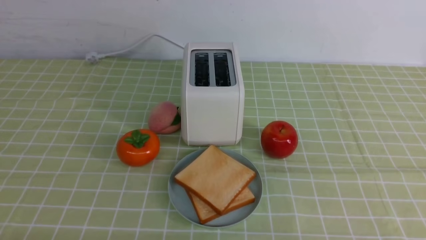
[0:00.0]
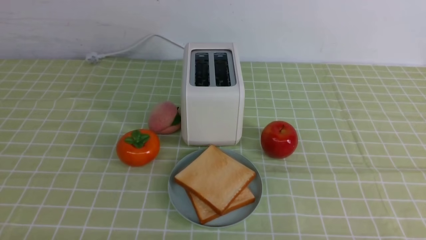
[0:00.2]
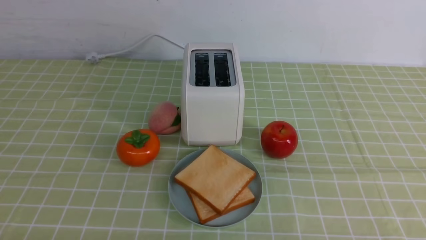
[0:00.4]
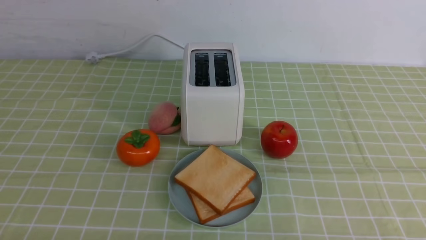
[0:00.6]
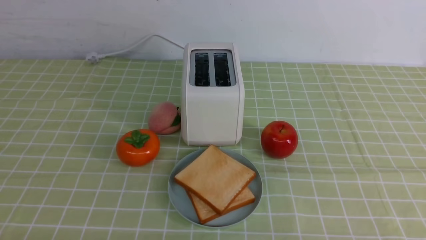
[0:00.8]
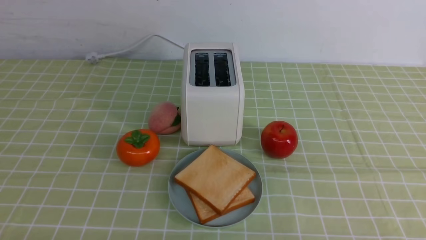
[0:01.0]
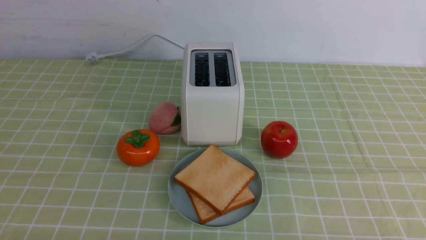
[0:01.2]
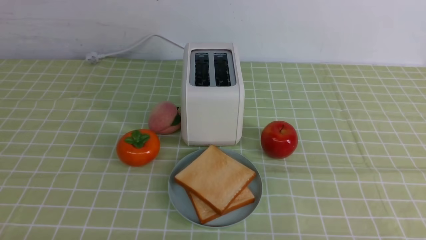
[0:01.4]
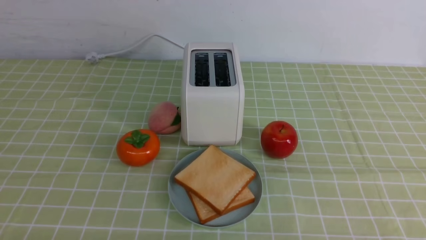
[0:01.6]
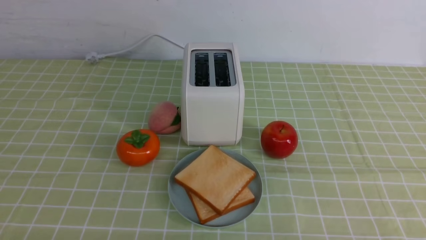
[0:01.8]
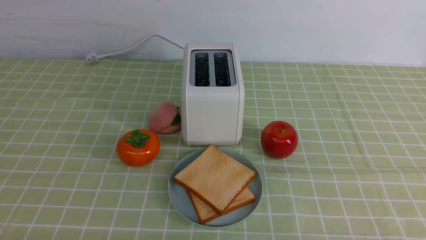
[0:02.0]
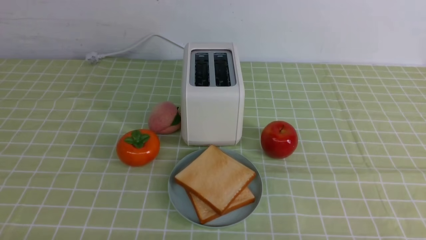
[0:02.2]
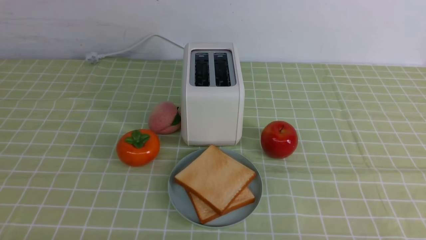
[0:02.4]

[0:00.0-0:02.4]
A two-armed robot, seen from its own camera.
Task of the whole recording: take toasted bread from bread machine on green coffee tablecloth place on plate.
0:01.2 to 0:02.4: Both grippers stay put.

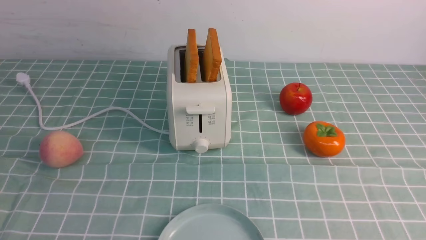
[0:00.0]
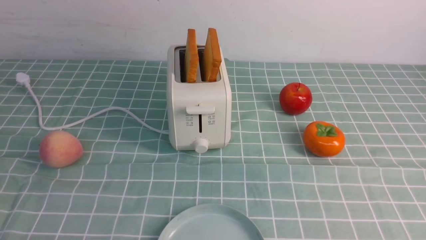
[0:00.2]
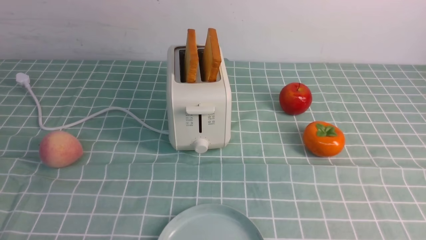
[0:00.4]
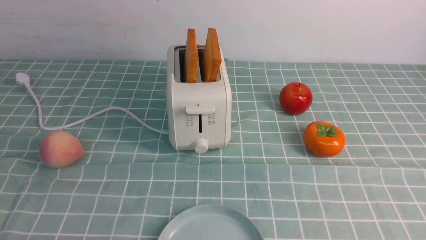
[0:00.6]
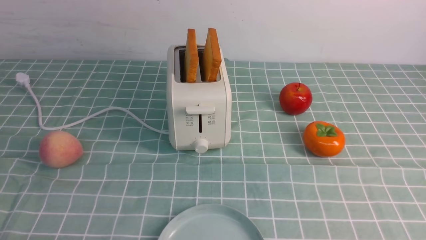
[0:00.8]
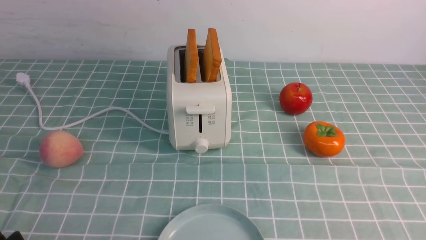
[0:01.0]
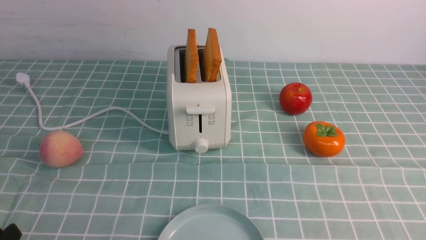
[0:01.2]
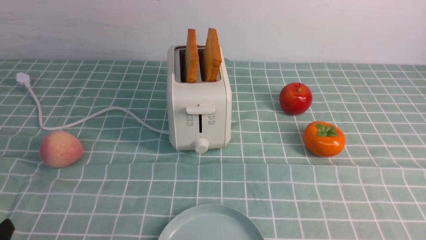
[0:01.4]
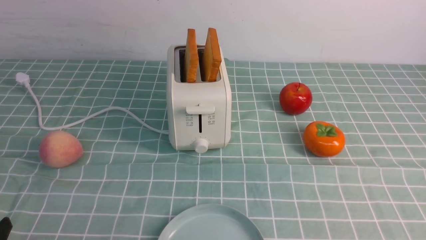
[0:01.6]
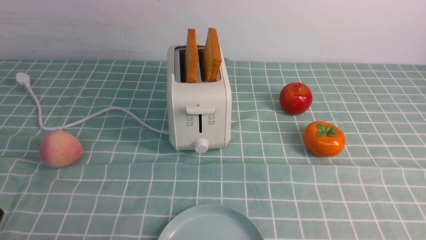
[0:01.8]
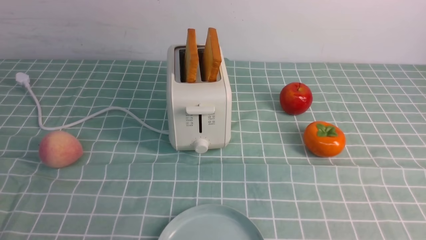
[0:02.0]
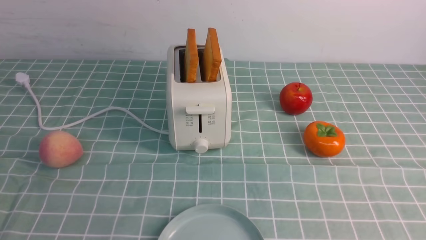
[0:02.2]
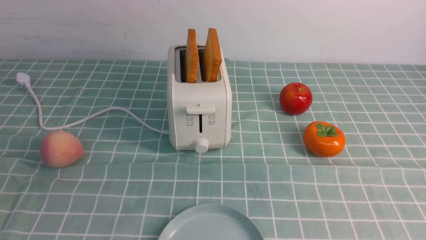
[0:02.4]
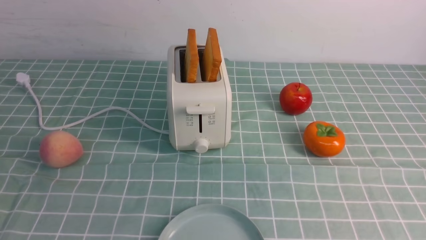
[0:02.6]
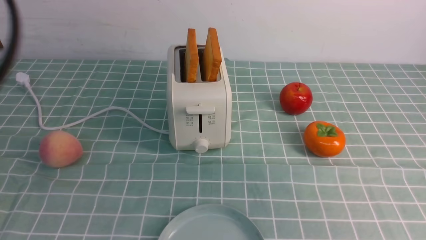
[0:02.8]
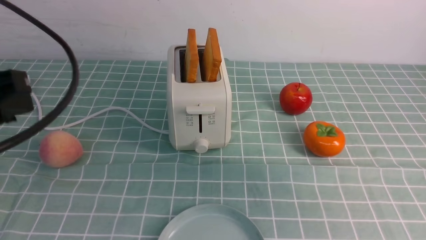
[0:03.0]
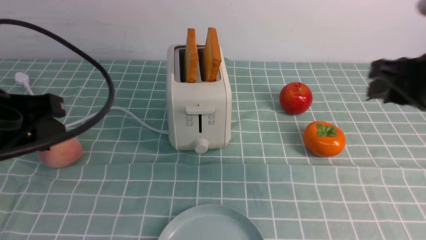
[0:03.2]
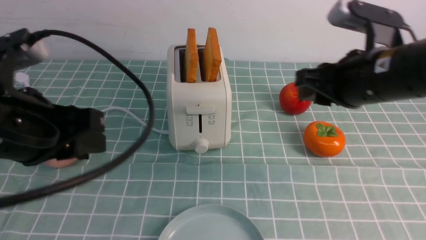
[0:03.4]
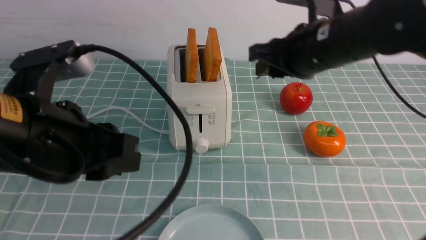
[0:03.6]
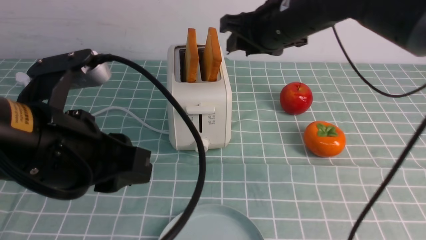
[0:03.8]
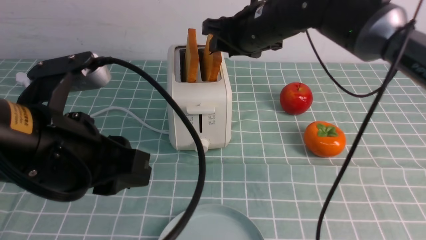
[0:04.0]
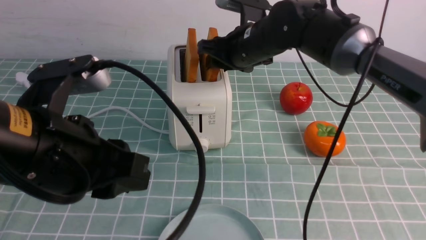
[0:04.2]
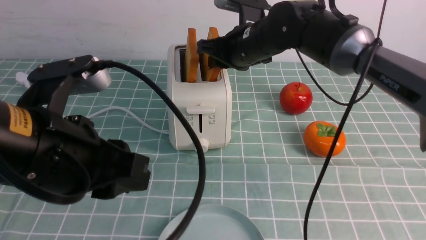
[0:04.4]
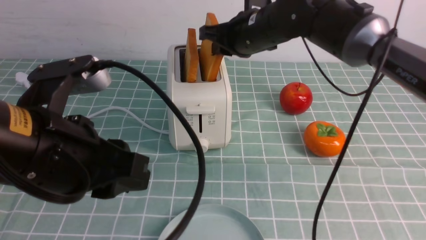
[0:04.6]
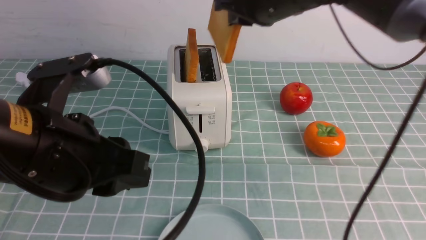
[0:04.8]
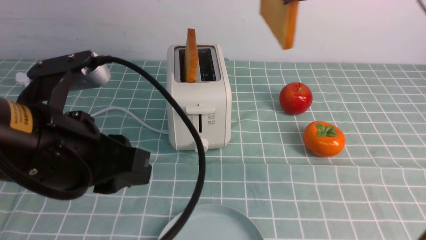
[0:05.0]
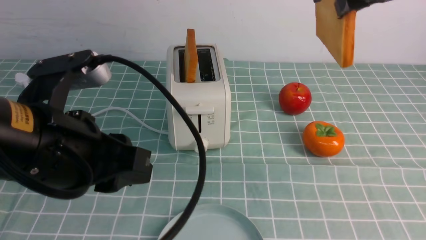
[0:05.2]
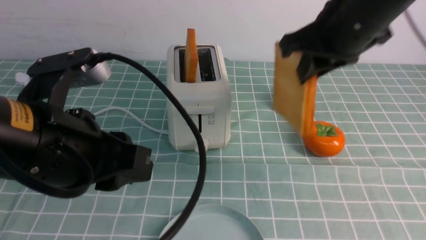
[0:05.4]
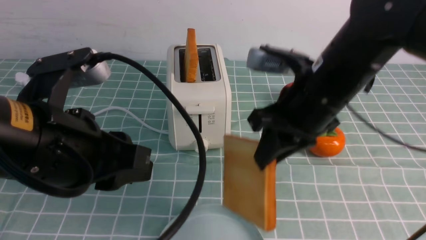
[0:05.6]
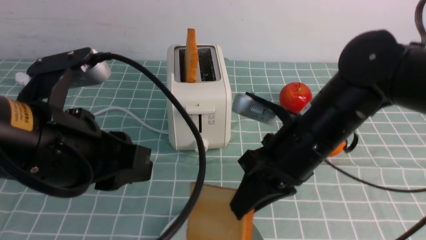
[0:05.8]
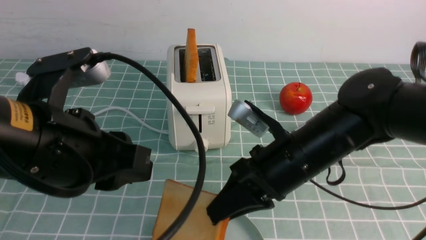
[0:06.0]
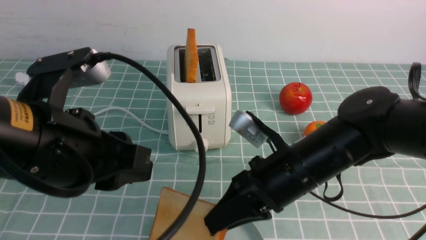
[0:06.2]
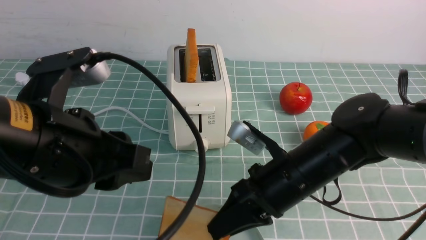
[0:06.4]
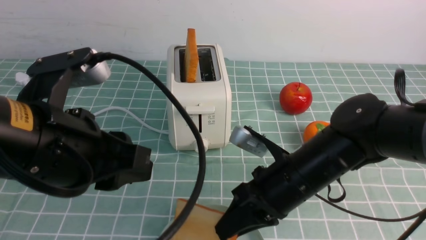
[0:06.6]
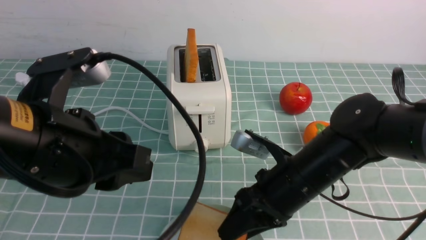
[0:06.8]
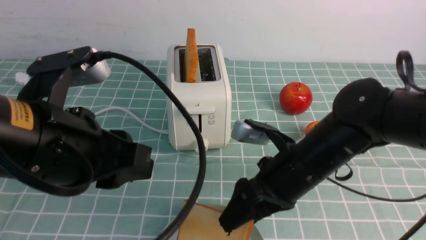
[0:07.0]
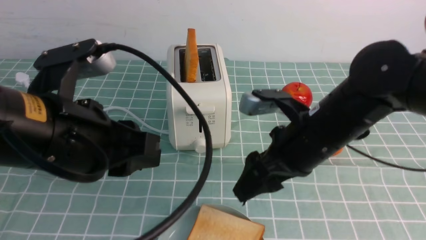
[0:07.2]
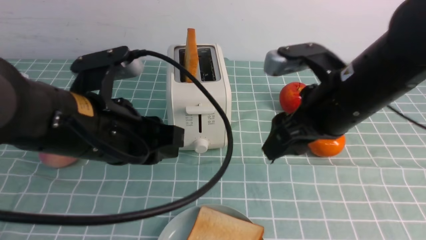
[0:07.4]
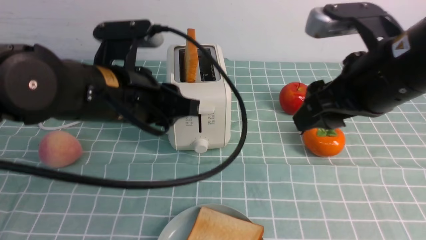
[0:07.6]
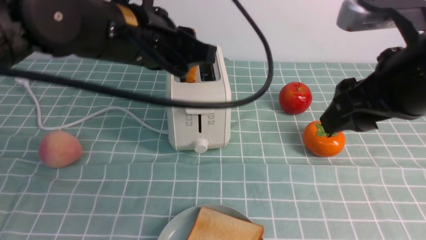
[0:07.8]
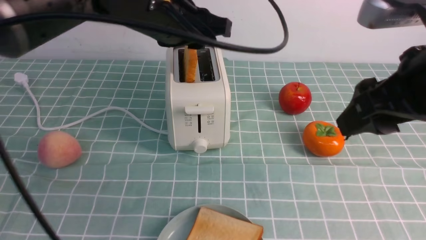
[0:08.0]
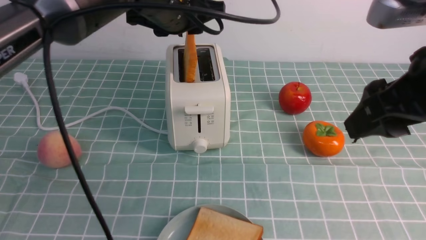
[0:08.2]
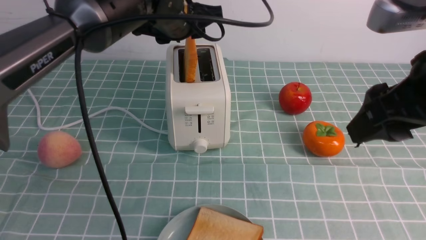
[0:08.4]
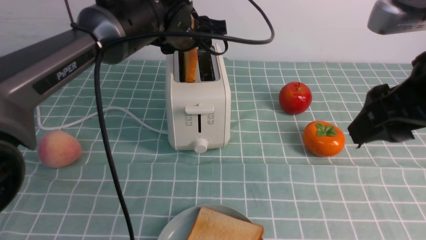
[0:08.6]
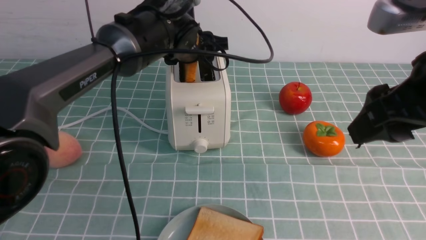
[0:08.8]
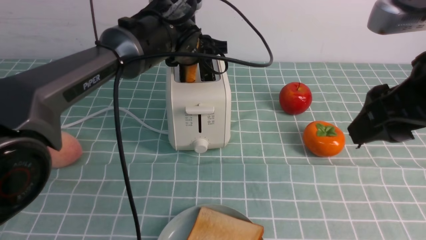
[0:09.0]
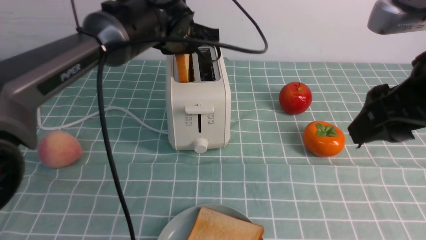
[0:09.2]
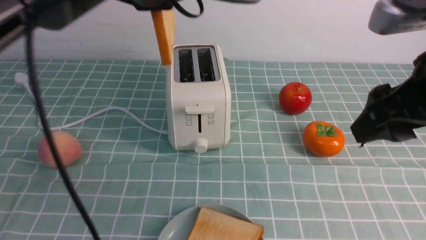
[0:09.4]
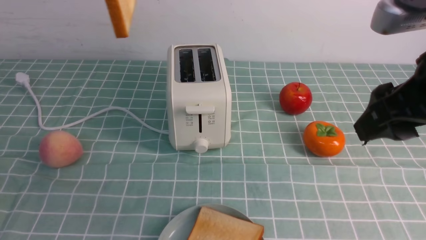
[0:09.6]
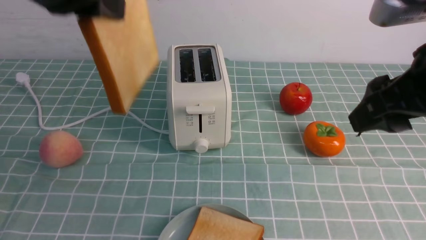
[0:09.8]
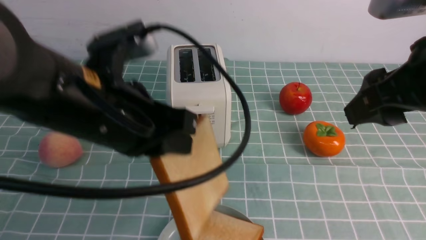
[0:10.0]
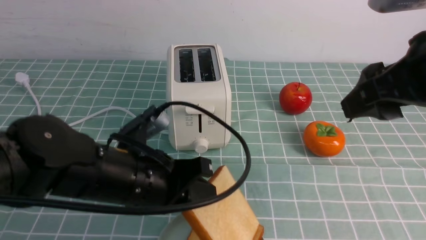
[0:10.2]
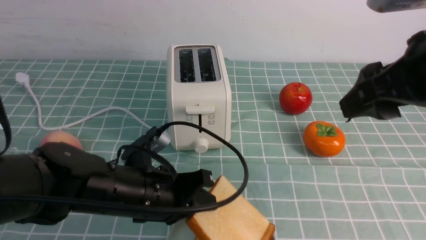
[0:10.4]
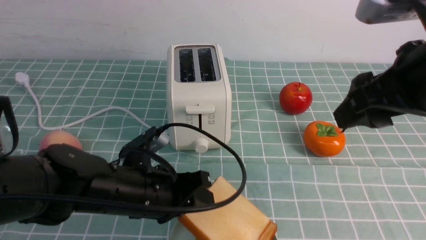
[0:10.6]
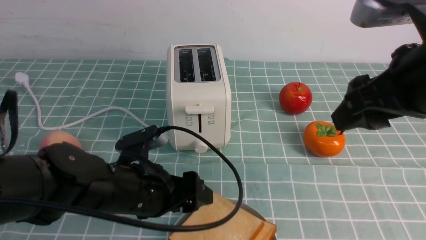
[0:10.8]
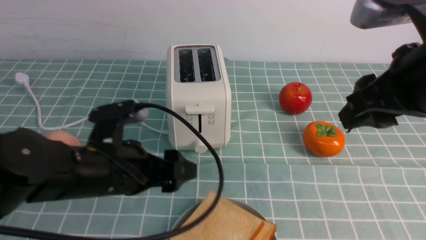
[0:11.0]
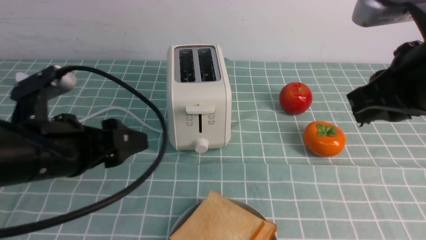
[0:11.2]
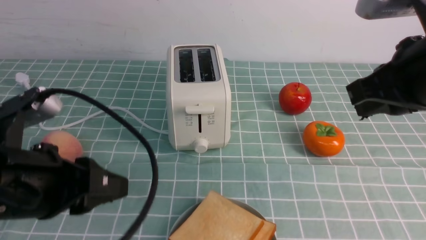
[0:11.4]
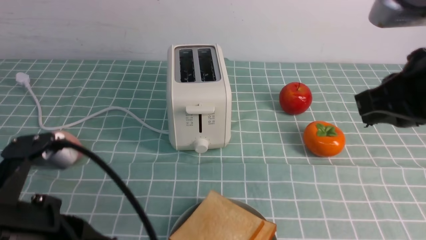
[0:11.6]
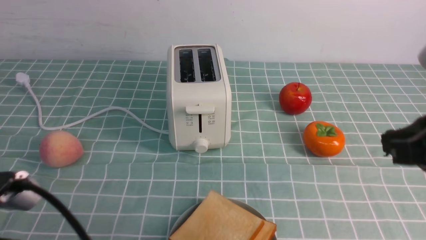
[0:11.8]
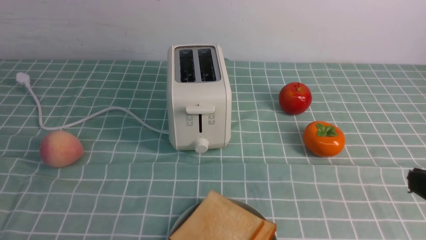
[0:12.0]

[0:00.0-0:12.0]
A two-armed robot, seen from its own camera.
Task of the whole recording: take toasted bread from bread machine on blue coffee table place on plate.
Step, 0:00.0 to 0:05.0: use the right arm to take out a slice of bread.
Step, 0:05.4 to 0:07.0: use the right arm to put a slice of bread into the plate.
Step, 0:07.2 to 0:09.4: use the left arm to take out a slice of bread.
Step, 0:09.8 to 0:11.0: use the left arm to put a slice of bread into the empty plate.
0:01.6 to 0:03.0: The two grippers go approximately 25 cm upward and forward.
0:03.0 to 0:04.4: The right gripper shifts about 30 cm to the left and forward, while the left gripper heads to the right, covering roughly 10 cm.
0:04.4 to 0:06.0: The right gripper heads backward, covering about 20 cm.
0:06.0 to 0:07.6: The left gripper moves forward, about 10 cm. Meanwhile the right gripper heads upward and to the right, covering about 15 cm, and opens its fingers.
0:07.6 to 0:09.0: The right gripper moves roughly 5 cm. Meanwhile the left gripper moves forward, some 20 cm.
0:09.0 to 0:10.4: The left gripper moves backward and downward, roughly 25 cm.
0:10.4 to 0:12.0: The right gripper goes approximately 15 cm backward, downward and to the right, and closes up. Meanwhile the left gripper goes some 25 cm backward, to the left and upward, and opens, then closes once more.
